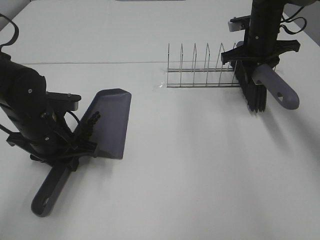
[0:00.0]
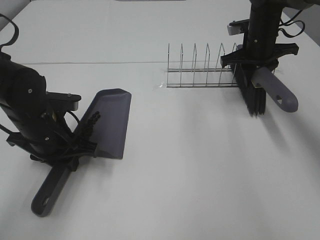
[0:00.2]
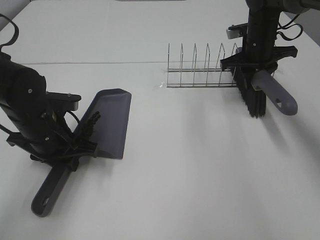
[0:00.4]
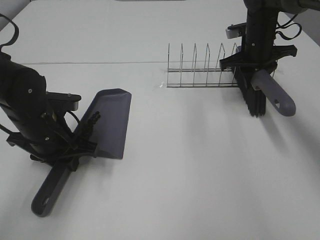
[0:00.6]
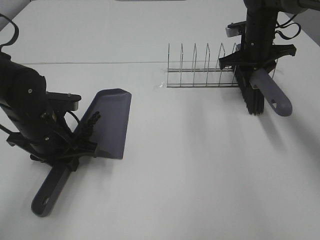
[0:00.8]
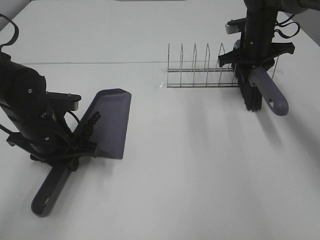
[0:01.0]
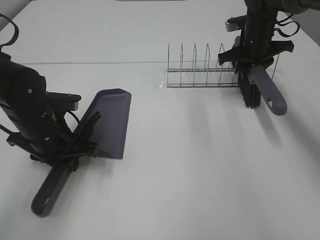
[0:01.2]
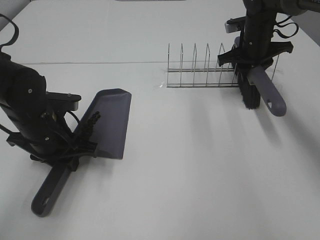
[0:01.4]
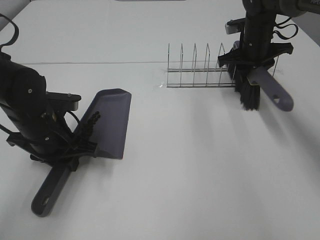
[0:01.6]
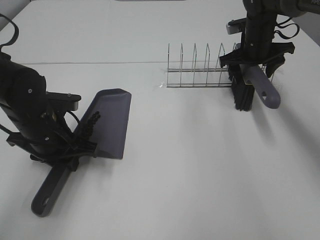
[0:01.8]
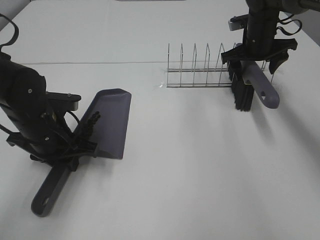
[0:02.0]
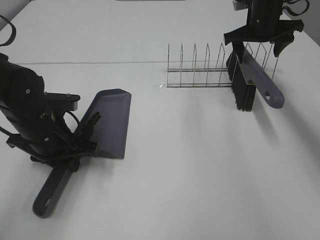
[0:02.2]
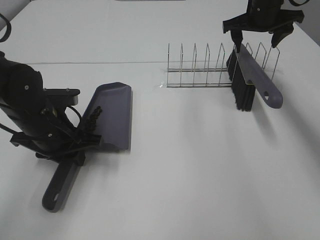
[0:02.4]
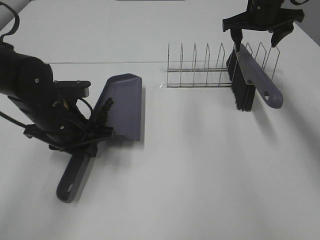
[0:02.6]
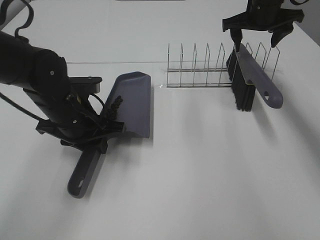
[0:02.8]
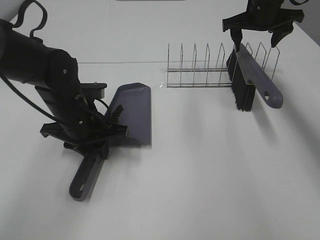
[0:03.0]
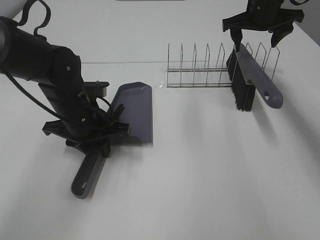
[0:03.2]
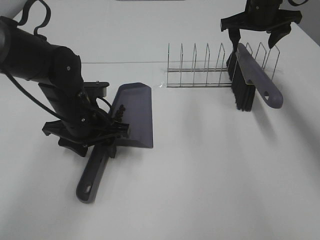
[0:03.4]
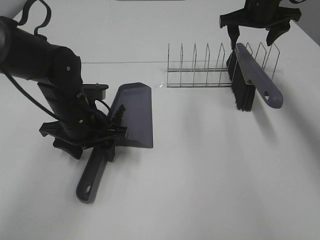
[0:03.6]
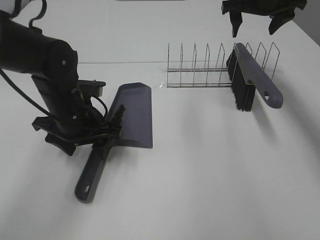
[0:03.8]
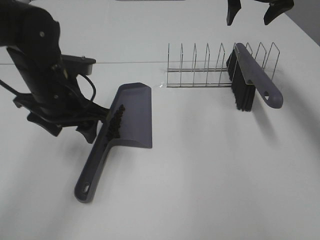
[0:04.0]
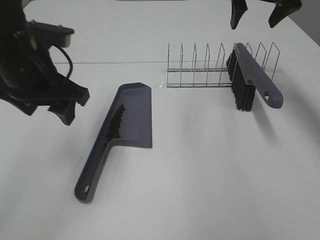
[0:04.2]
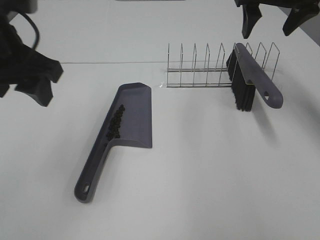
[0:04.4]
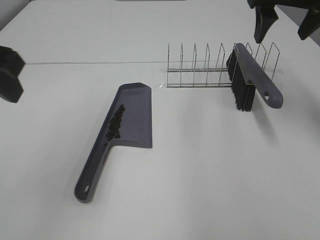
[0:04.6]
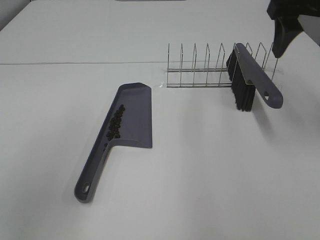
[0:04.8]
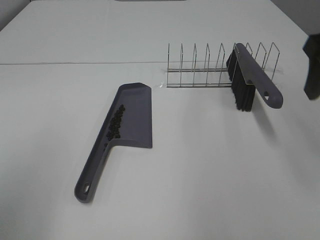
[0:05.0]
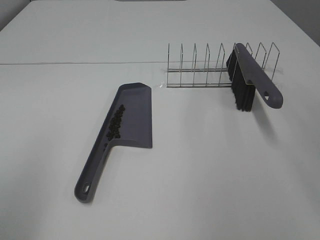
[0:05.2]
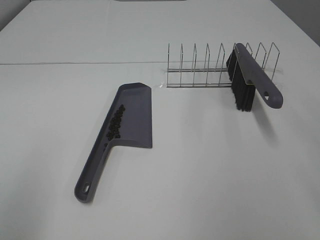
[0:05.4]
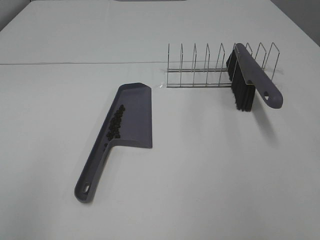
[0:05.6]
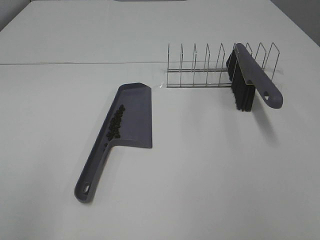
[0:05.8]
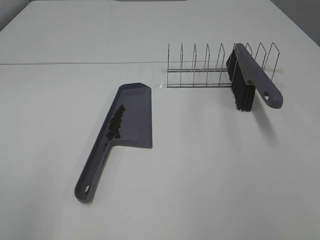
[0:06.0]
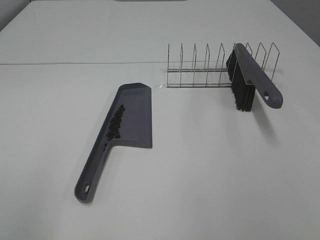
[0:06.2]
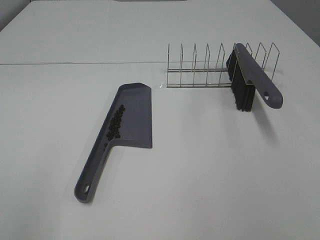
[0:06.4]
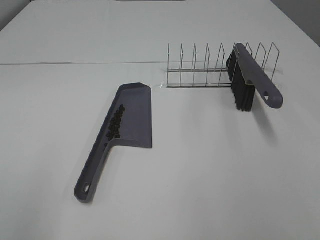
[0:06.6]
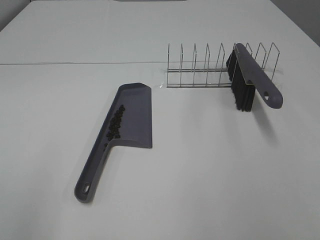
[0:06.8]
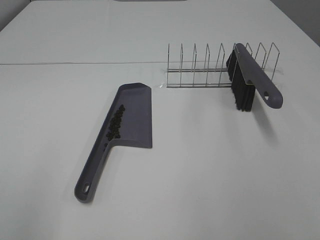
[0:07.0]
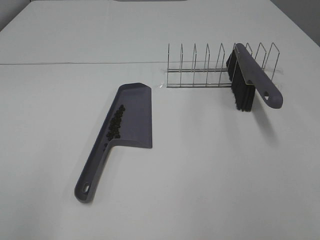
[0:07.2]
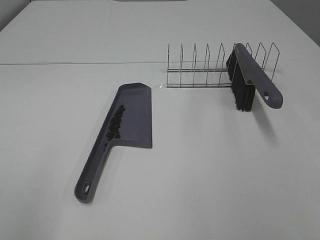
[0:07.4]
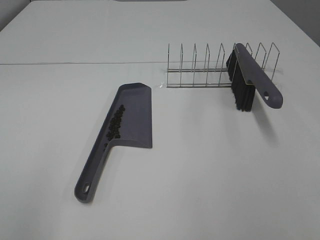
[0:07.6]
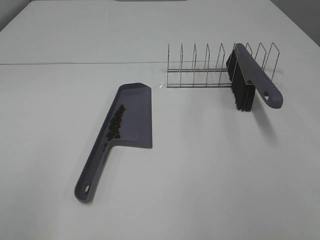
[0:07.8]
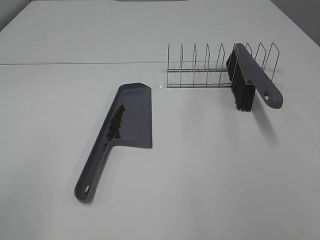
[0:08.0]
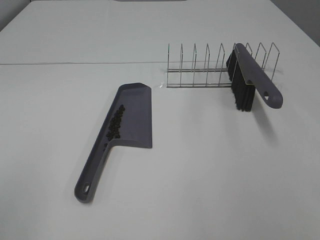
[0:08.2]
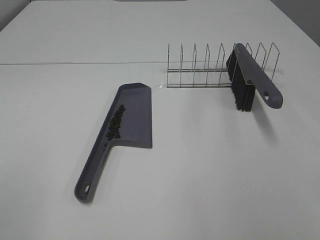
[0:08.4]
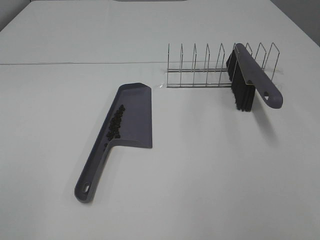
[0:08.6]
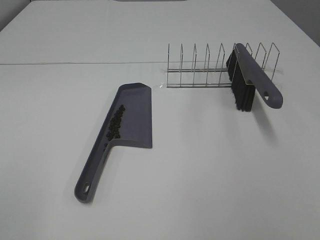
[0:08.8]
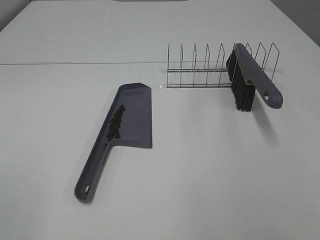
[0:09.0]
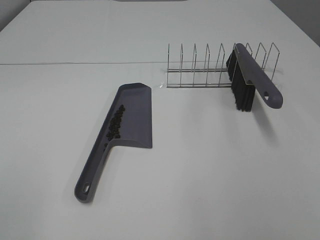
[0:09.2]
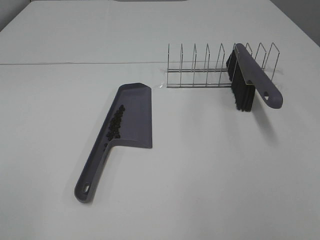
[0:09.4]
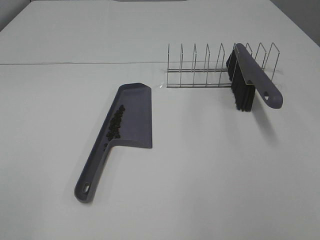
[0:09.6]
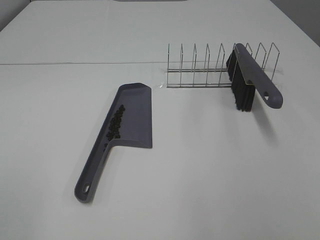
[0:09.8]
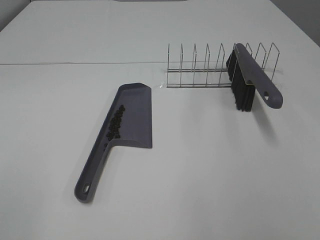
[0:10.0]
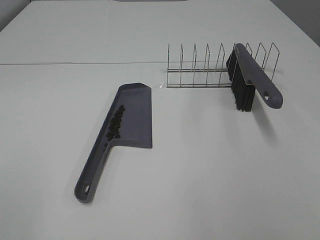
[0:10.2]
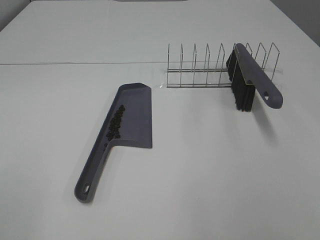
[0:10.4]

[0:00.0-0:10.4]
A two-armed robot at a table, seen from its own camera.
Task of the whole recording: Sweep Coffee Bean.
Step, 0:00.0 to 0:02.0: Right hand:place the broom on the rack.
Step, 0:02.2 to 0:03.8: Left hand:place the dustpan on the table.
0:00.0 to 0:01.4: The grippers stay close to where they were, moving slightly.
0:01.4 to 0:03.0: The left gripper ends up approximately 5 cm from where it was. Meanwhile the right gripper travels upward by about 5 cm, and opens up.
0:03.0 to 0:04.4: The left gripper moves upward, some 20 cm, and opens, while the right gripper travels backward and upward by roughly 15 cm.
0:04.4 to 0:06.0: The left gripper shifts some 20 cm backward. Meanwhile the right gripper moves backward, some 40 cm.
0:09.0 to 0:10.4: Both grippers stay put.
